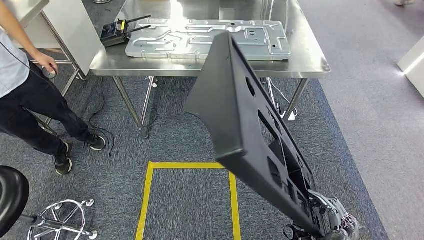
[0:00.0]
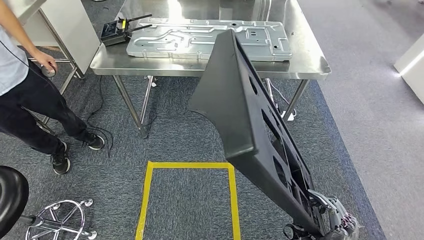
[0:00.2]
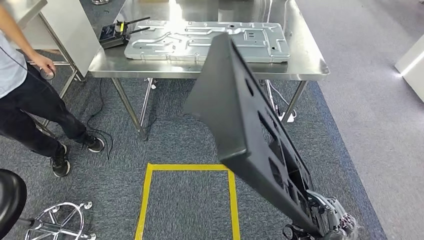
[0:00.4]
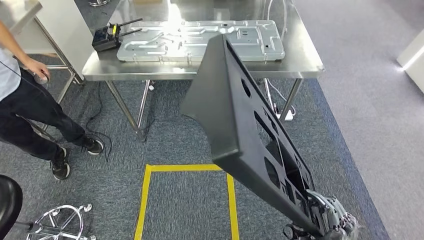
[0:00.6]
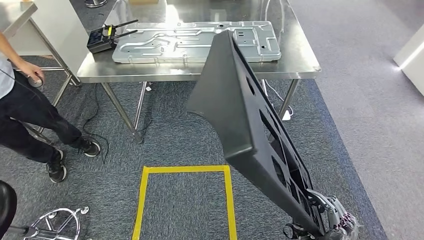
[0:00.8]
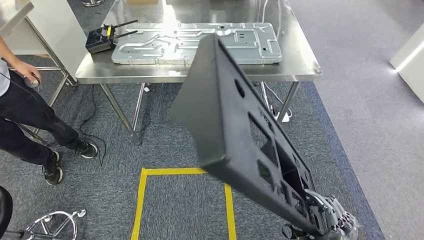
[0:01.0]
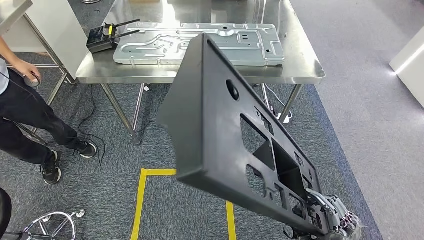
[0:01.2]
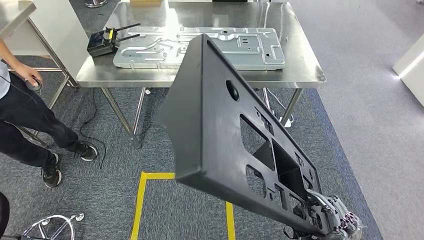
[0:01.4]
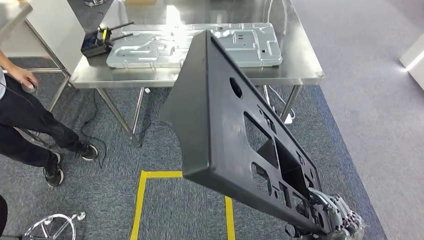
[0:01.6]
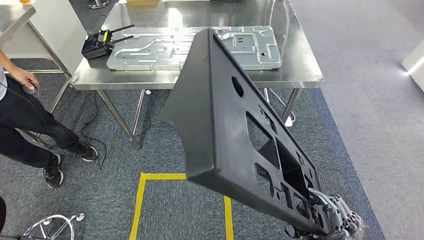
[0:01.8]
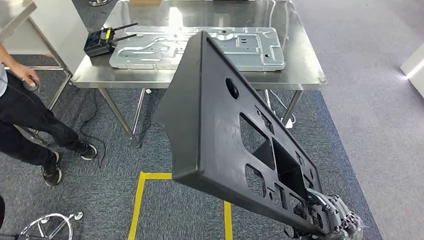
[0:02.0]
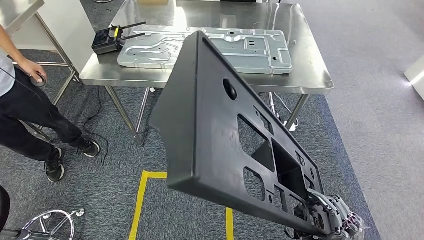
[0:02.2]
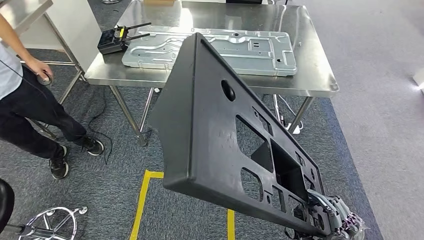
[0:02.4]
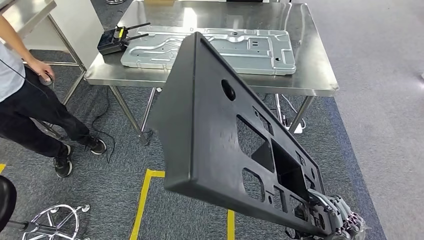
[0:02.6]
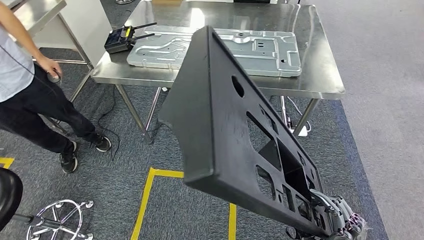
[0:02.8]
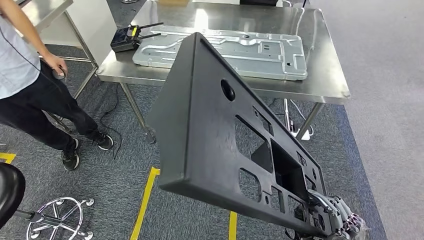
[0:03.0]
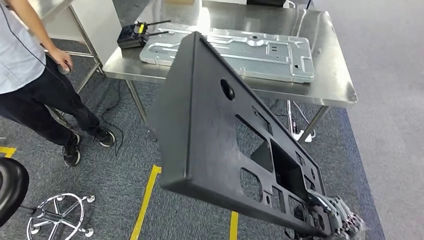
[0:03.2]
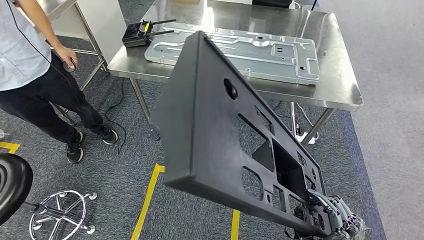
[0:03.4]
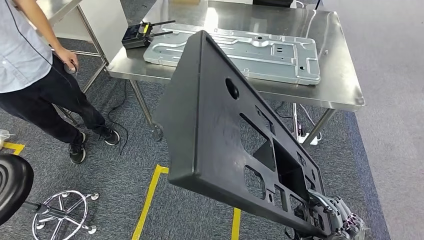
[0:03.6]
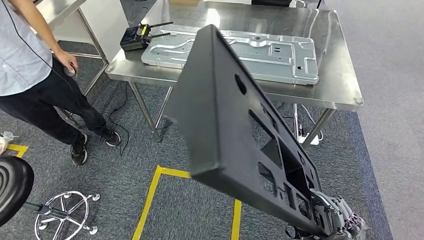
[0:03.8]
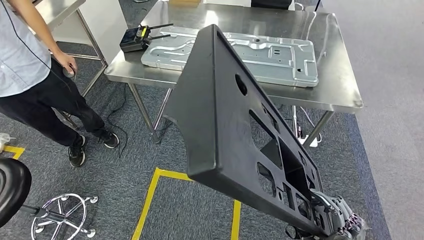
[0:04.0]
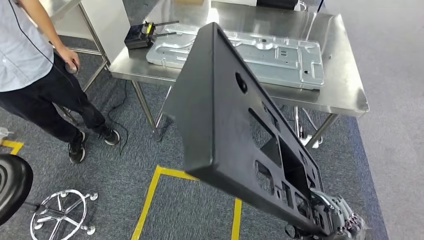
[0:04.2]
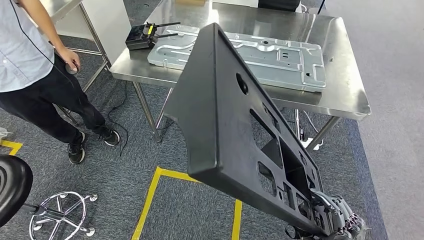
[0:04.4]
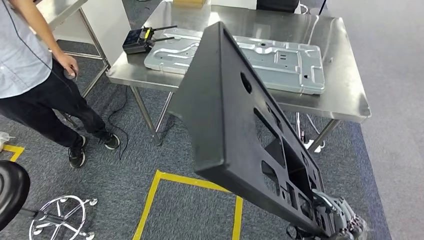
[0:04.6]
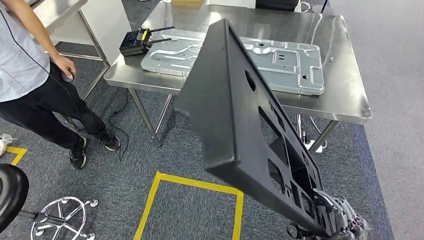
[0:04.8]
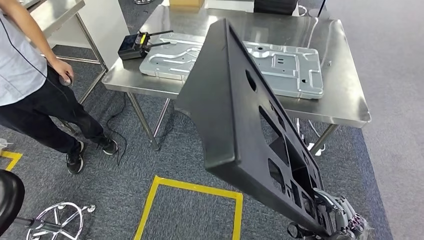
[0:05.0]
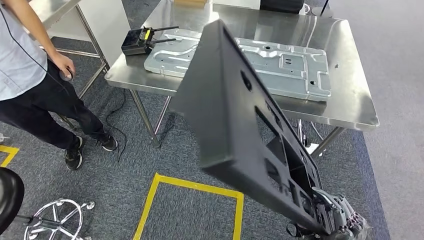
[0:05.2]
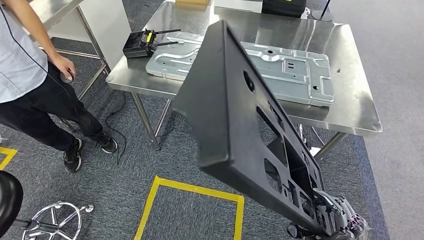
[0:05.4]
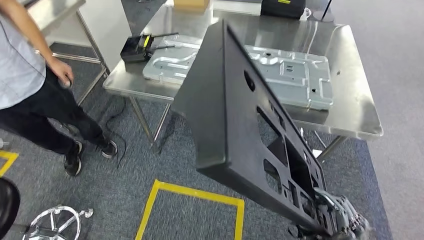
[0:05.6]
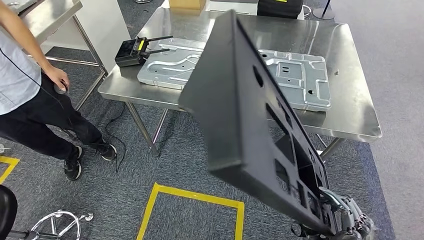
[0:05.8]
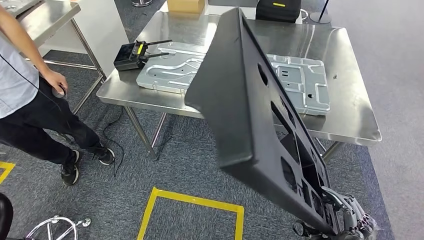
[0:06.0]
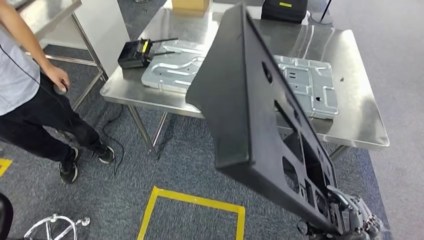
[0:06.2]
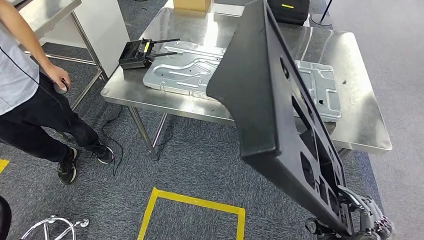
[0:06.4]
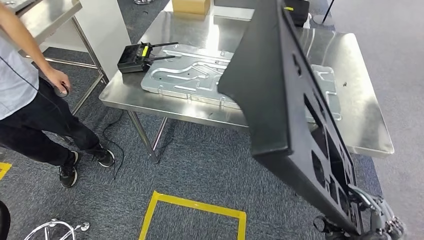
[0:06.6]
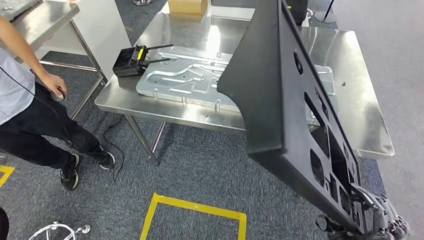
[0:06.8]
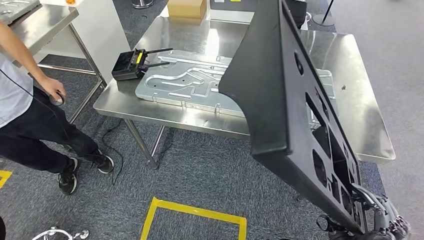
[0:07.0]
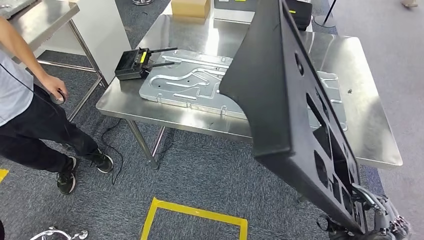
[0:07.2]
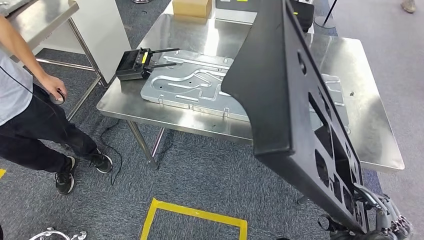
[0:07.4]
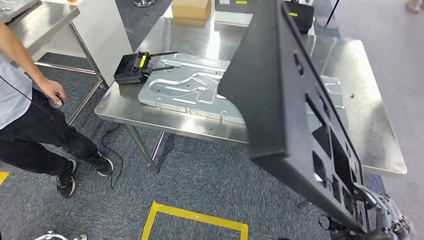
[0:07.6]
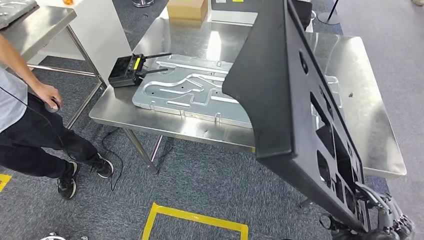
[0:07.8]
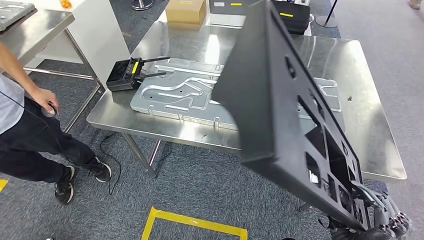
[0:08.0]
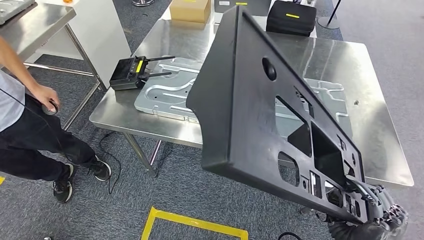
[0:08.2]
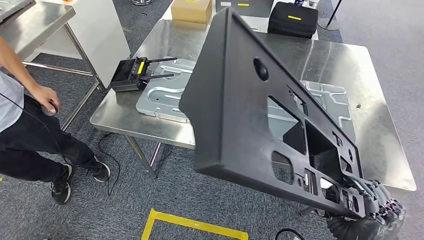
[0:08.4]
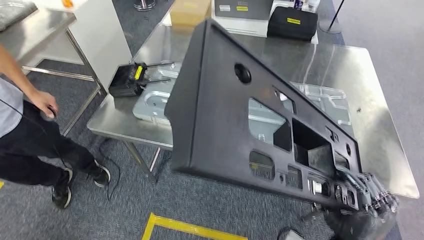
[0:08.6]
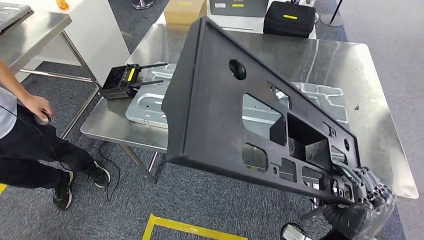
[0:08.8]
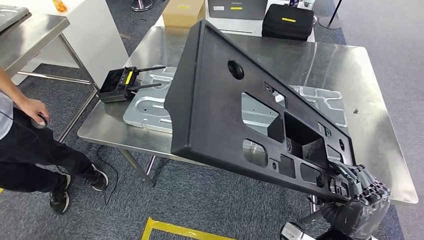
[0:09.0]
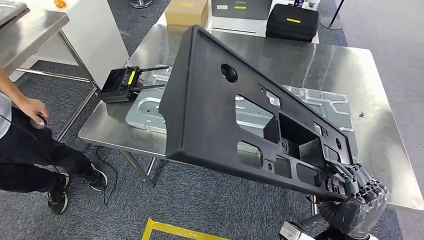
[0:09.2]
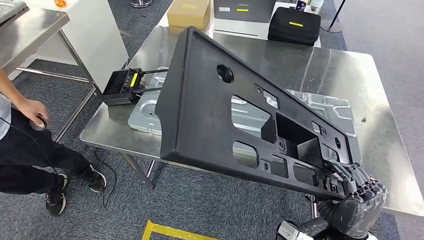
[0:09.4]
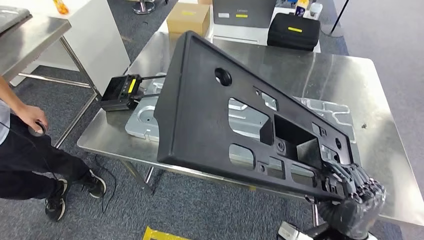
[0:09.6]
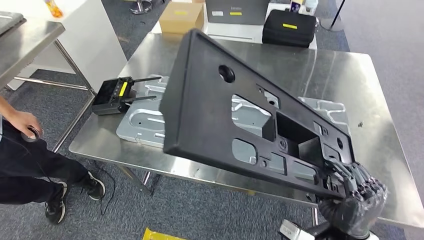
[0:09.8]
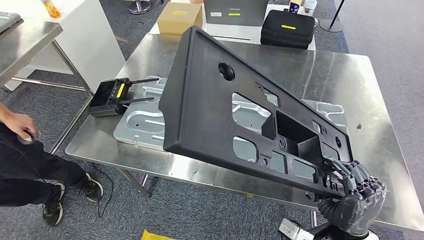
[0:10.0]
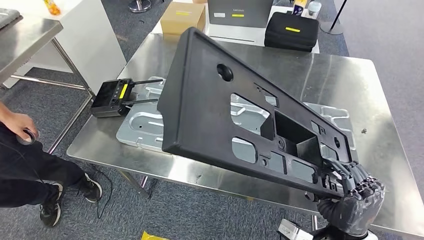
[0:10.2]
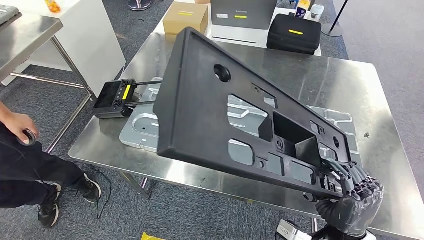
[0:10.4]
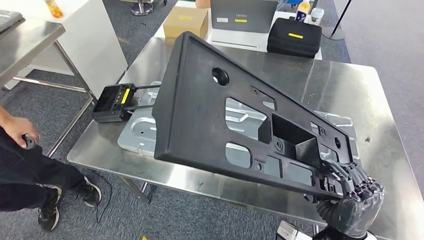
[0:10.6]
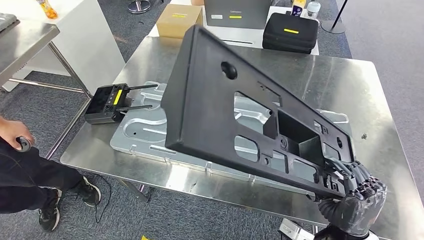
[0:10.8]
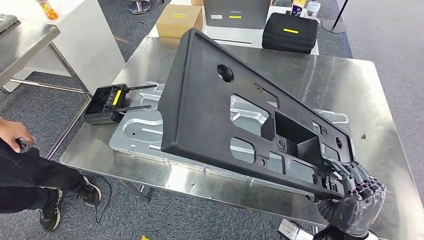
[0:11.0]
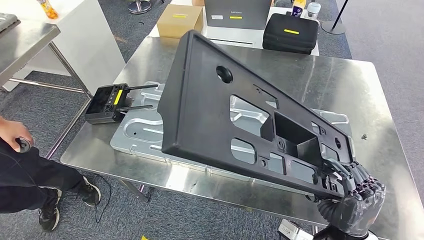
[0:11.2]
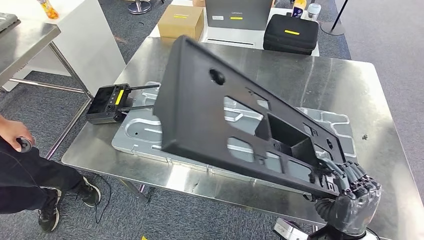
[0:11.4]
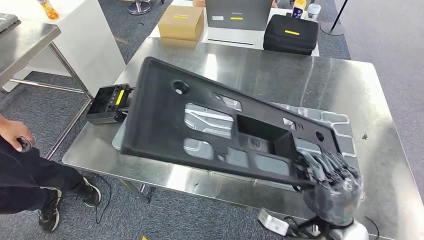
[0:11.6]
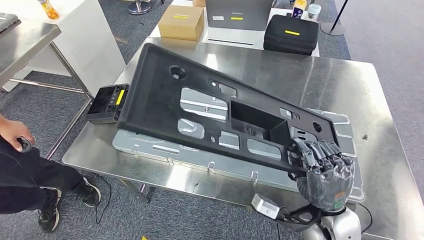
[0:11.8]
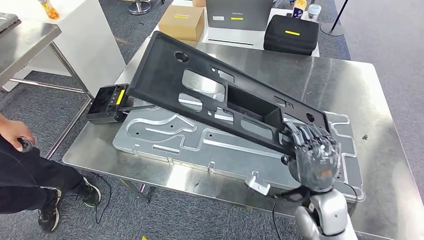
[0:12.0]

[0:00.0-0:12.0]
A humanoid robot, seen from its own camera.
Step, 0:00.0 to 0:08.2: Move the large material to the workbench.

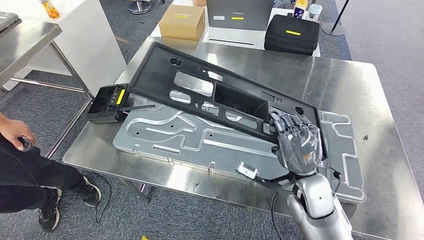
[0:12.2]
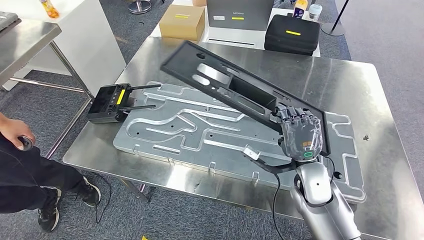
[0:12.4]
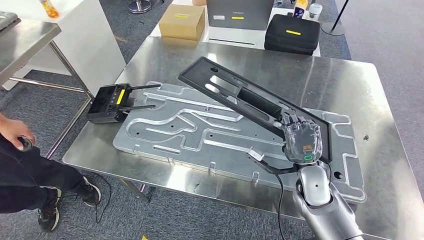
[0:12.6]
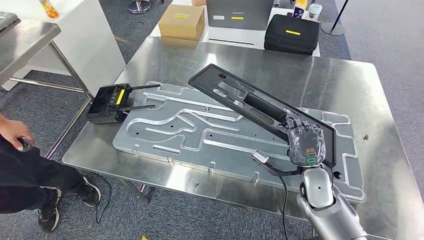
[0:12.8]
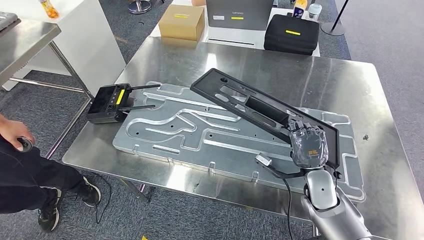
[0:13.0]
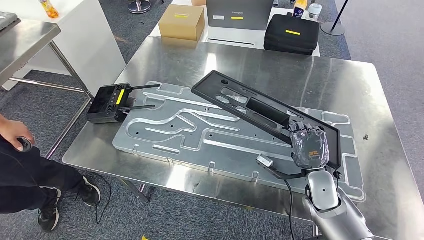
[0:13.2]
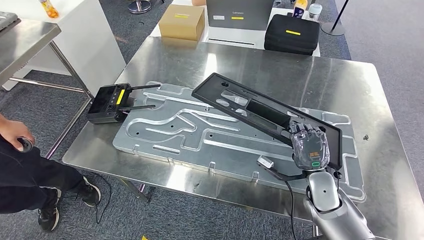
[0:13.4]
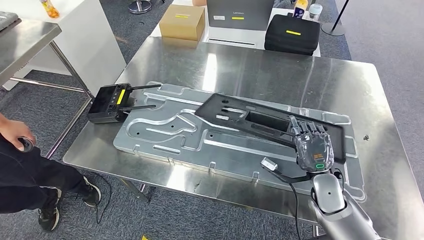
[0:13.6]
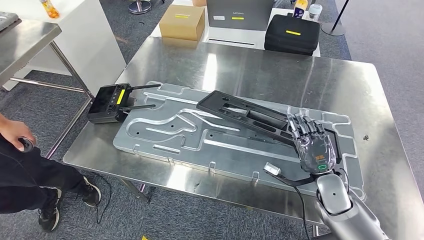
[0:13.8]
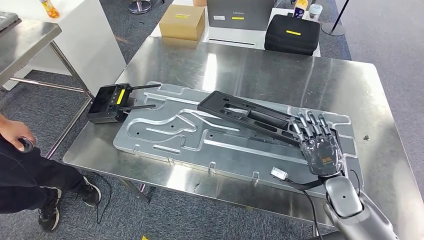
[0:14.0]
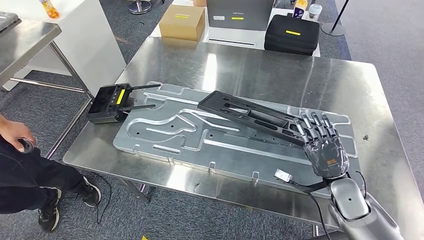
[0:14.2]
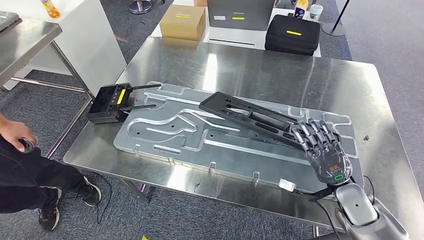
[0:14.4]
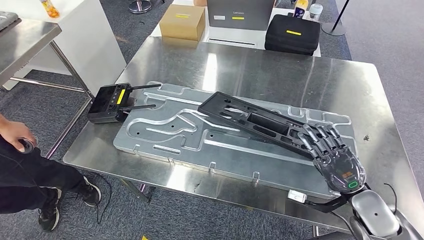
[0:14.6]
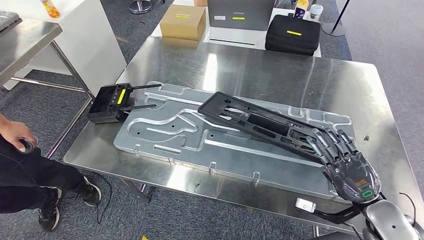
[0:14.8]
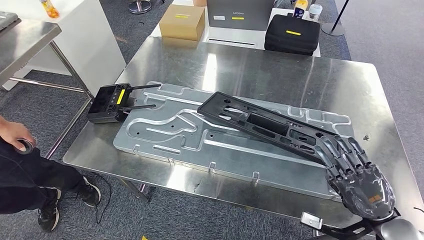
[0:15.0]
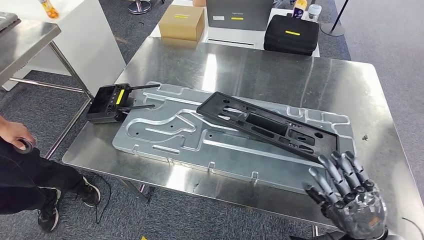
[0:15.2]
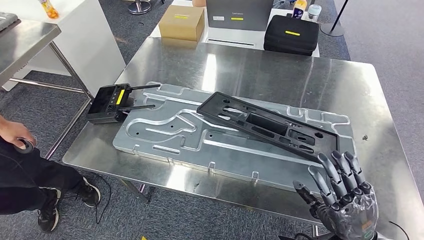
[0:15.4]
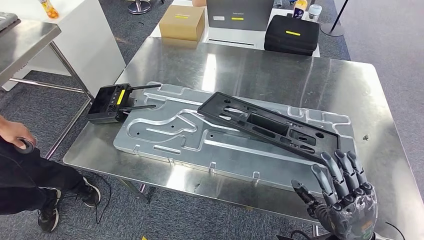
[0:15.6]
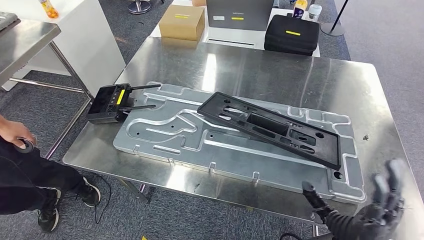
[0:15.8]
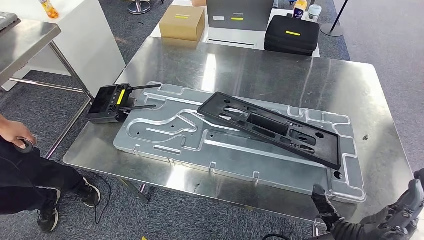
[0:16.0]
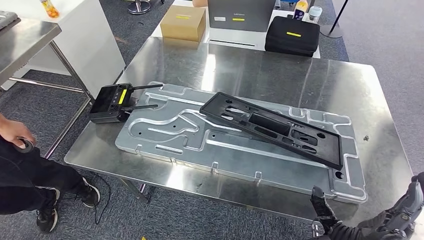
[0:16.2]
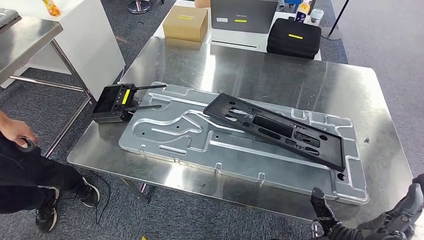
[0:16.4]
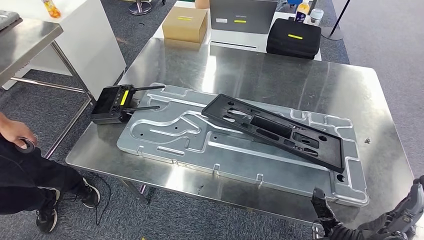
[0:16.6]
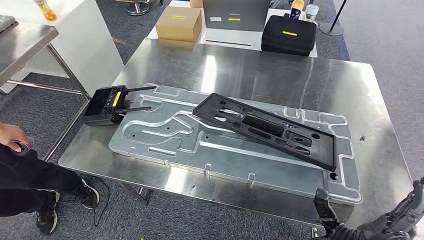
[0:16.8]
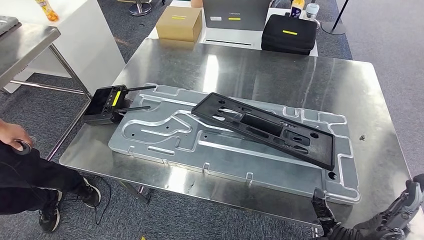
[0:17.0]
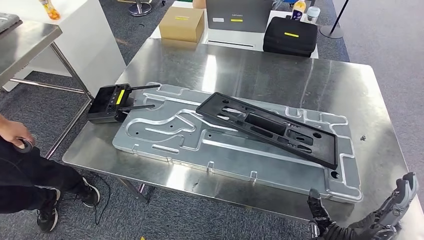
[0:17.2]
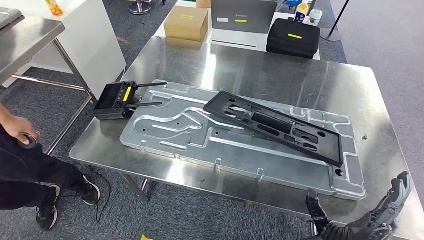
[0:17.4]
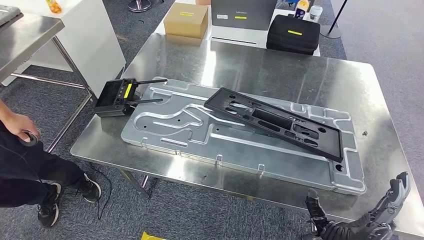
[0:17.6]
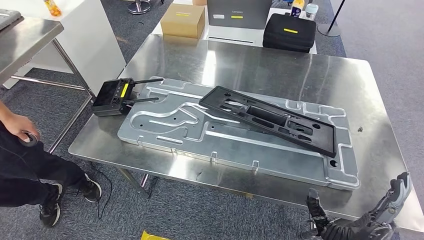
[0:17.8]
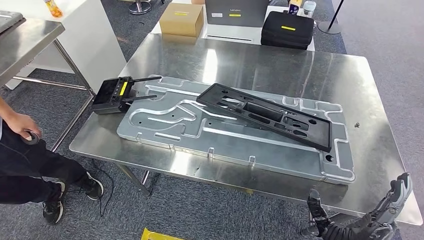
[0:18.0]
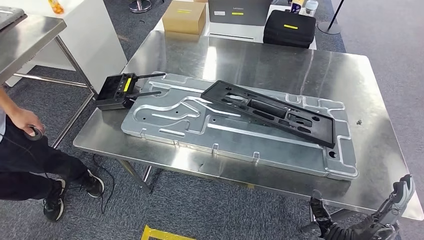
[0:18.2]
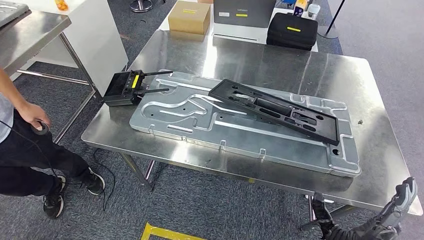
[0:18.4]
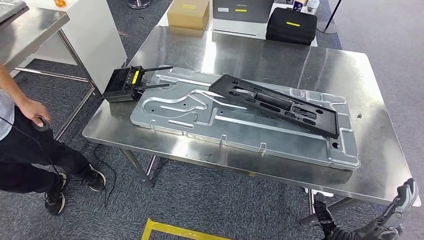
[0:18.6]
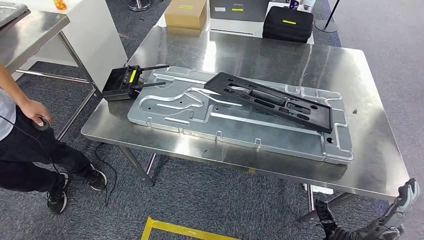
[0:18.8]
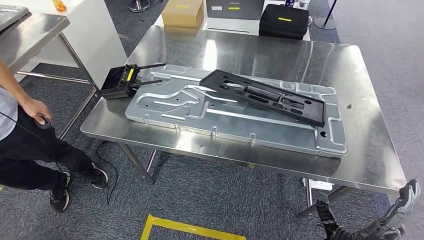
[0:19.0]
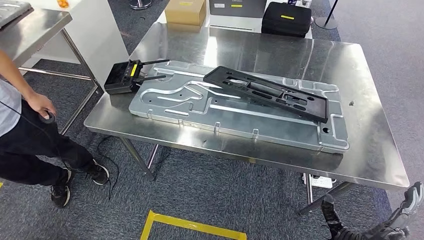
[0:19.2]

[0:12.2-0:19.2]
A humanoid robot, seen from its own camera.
Step, 0:12.2 to 0:17.6: Insert the large material into the corresponding slot on the workbench.
0:12.2 to 0:13.6: The right hand goes some 10 cm to the right and downward.
0:13.6 to 0:15.0: The right hand heads backward, to the right and upward, covering some 15 cm.
0:15.0 to 0:16.4: The right hand shifts some 15 cm to the left and backward.
